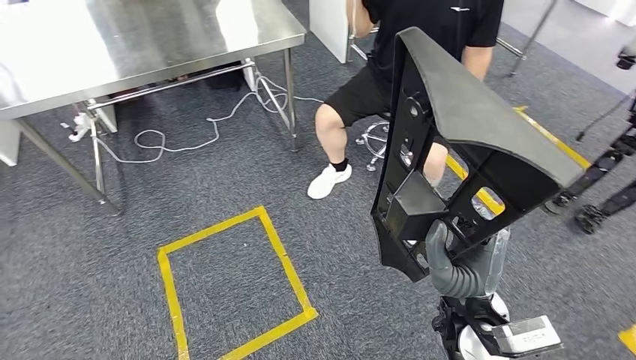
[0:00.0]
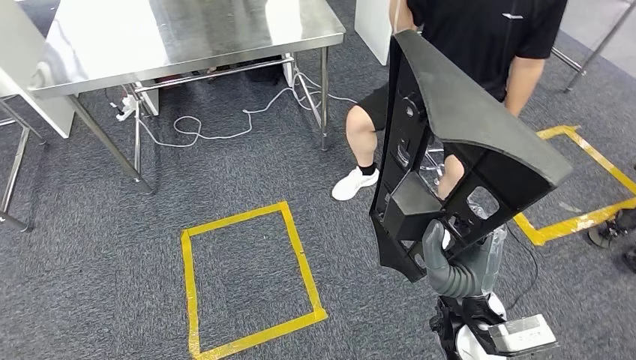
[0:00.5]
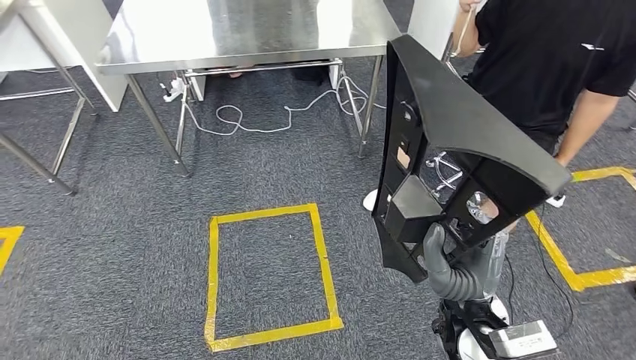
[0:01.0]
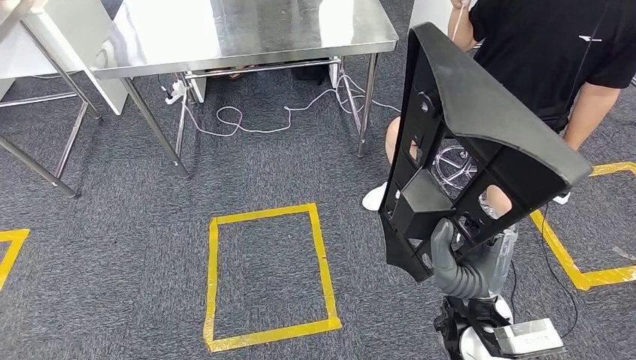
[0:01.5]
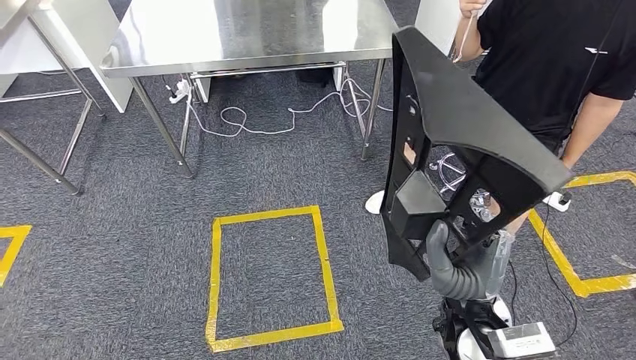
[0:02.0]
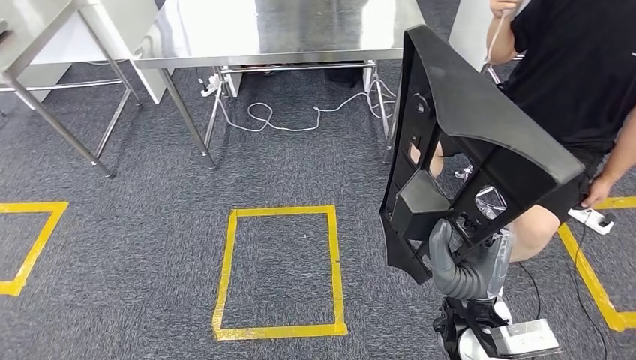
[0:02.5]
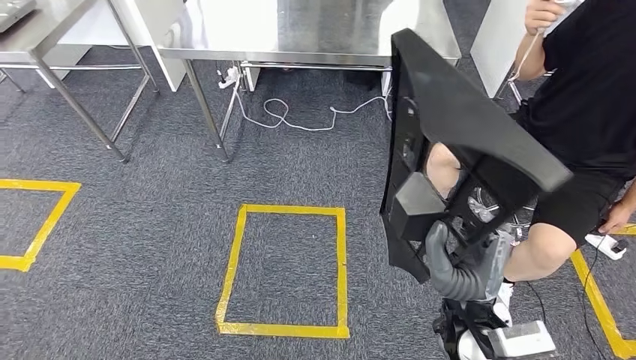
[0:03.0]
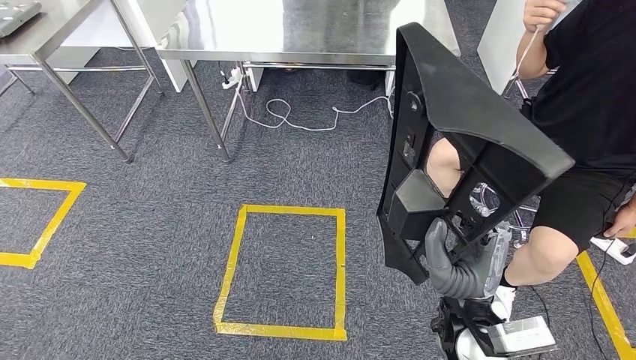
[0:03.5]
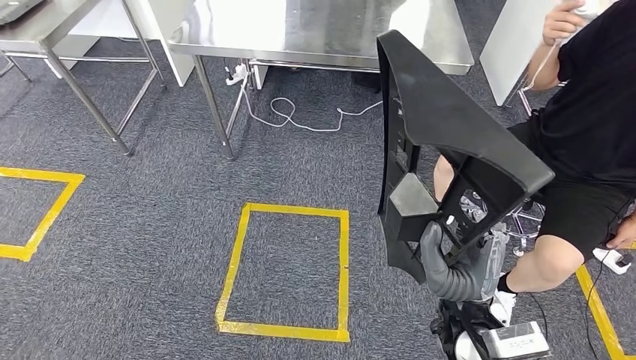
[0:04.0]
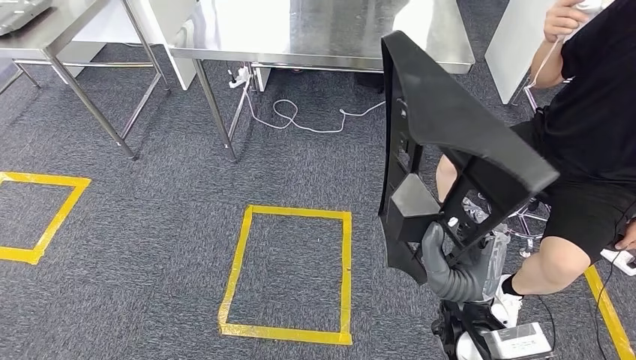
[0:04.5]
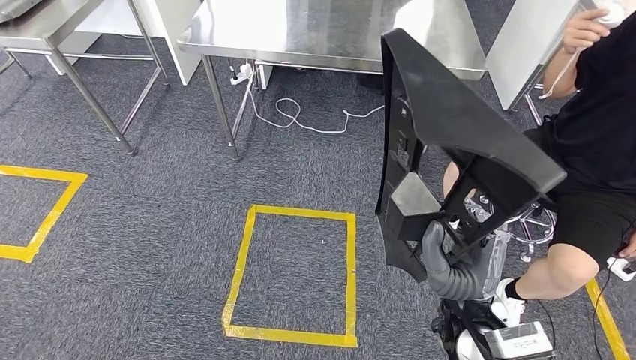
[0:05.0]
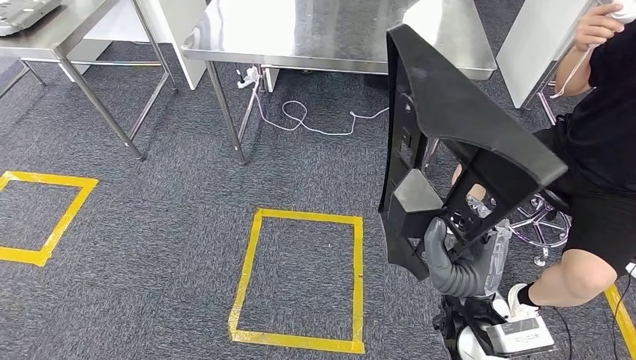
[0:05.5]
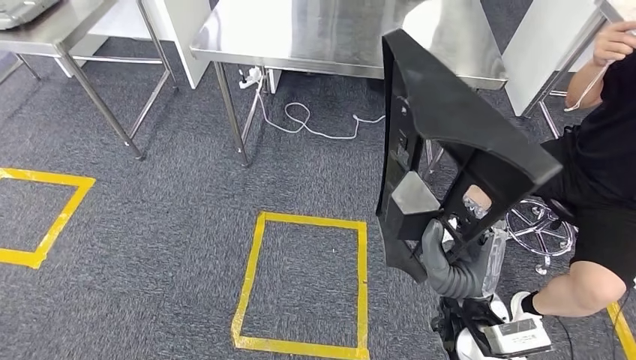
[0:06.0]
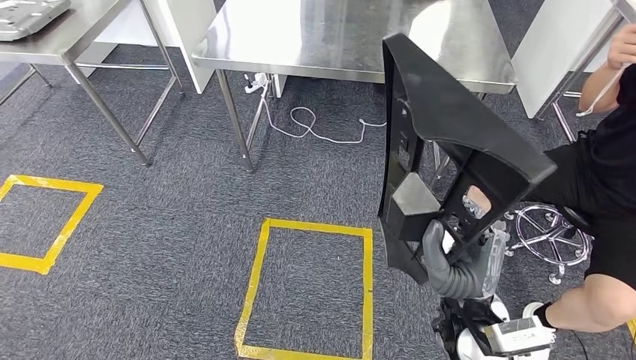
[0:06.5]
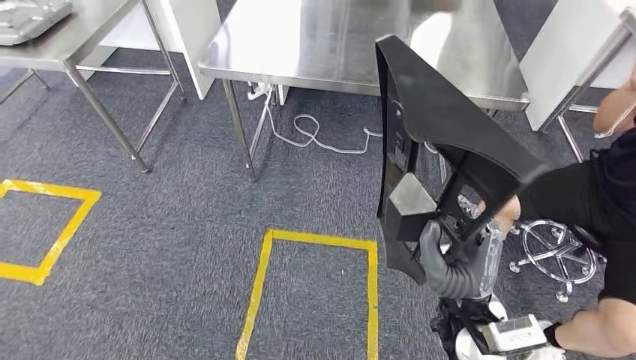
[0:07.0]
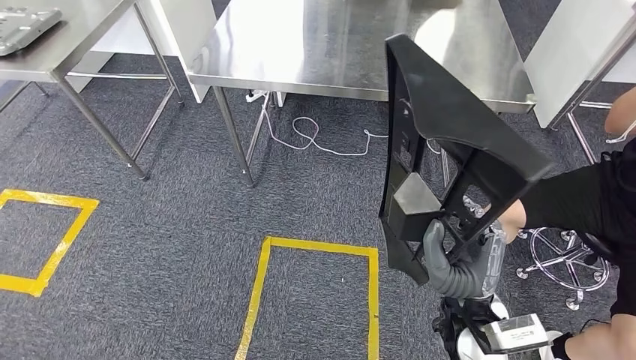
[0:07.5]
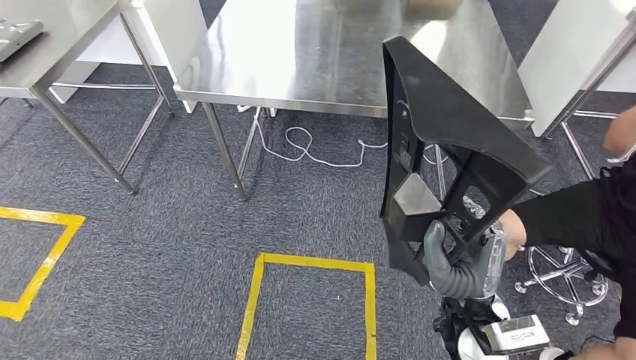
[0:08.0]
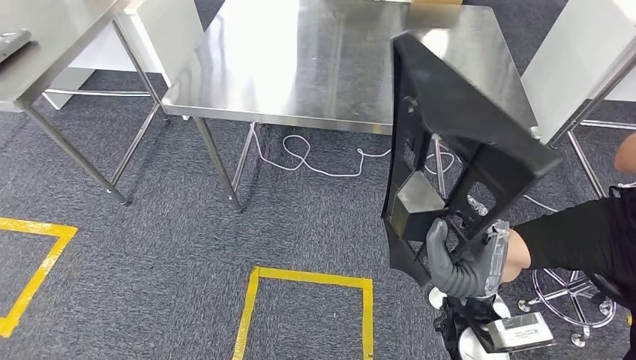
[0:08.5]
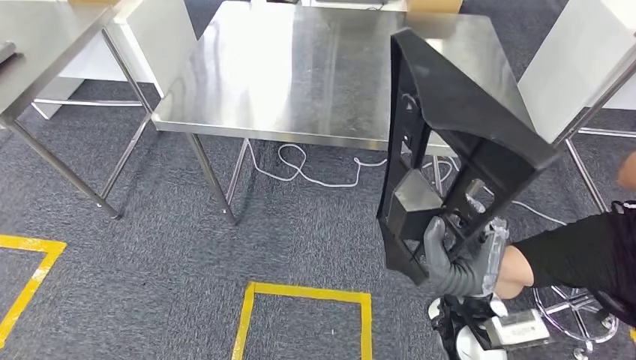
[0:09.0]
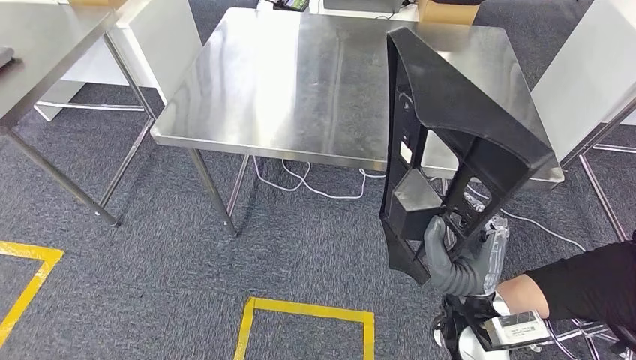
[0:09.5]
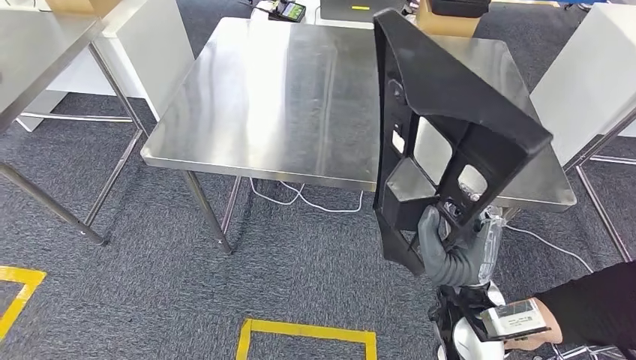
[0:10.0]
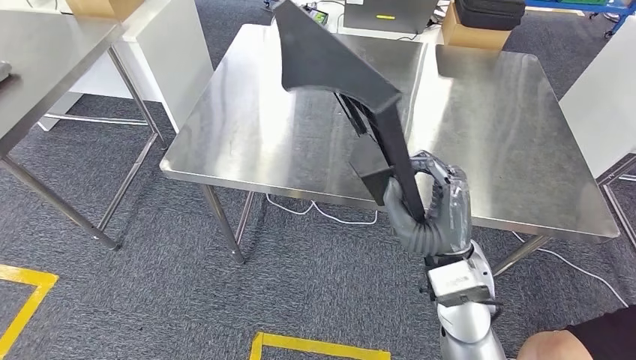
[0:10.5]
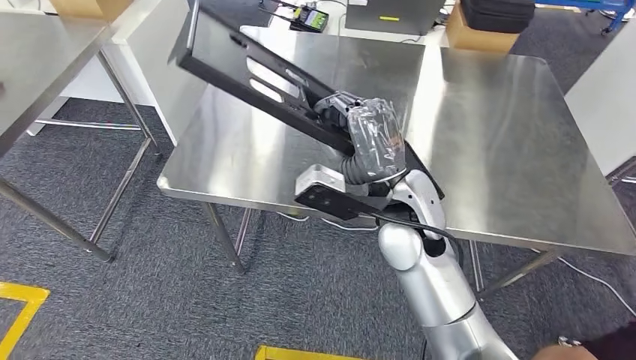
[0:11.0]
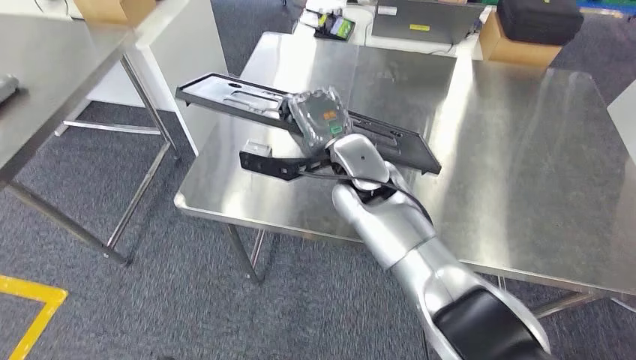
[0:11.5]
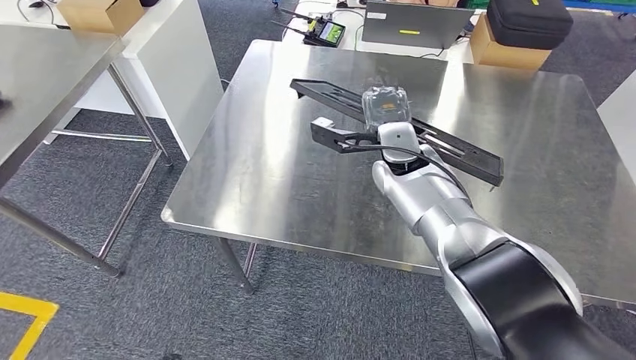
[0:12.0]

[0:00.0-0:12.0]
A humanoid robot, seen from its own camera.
Step, 0:00.0 to 0:09.5: Move the large material to the workbench.

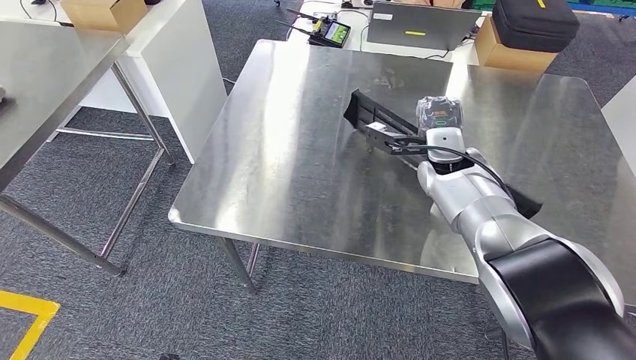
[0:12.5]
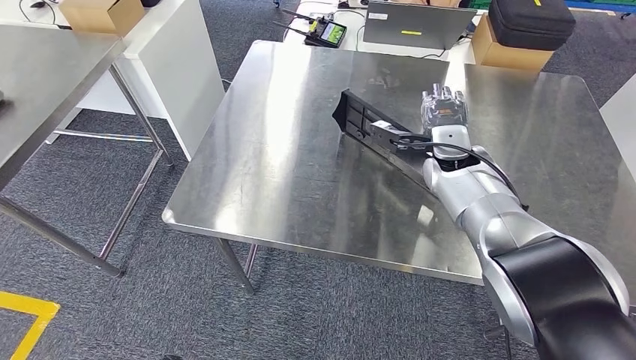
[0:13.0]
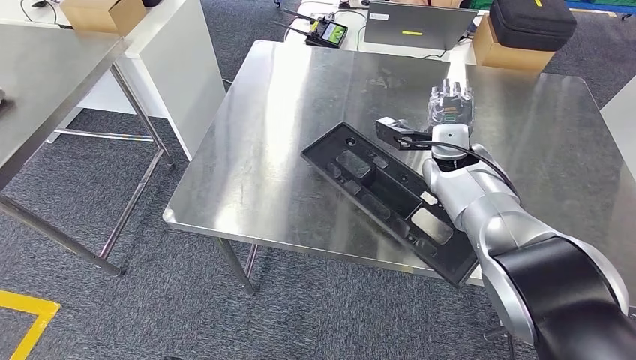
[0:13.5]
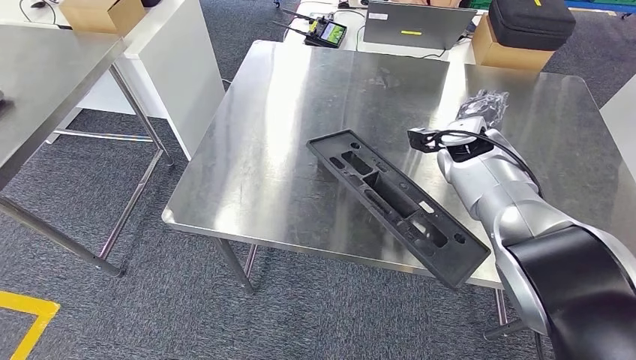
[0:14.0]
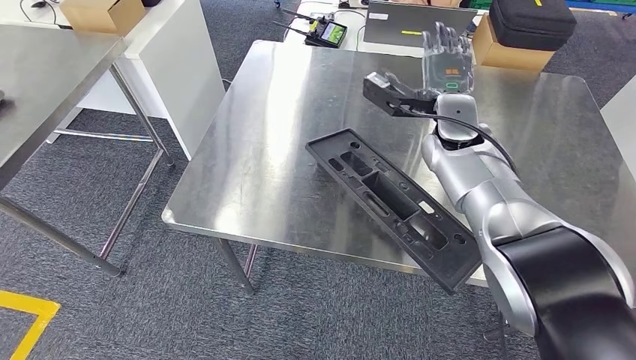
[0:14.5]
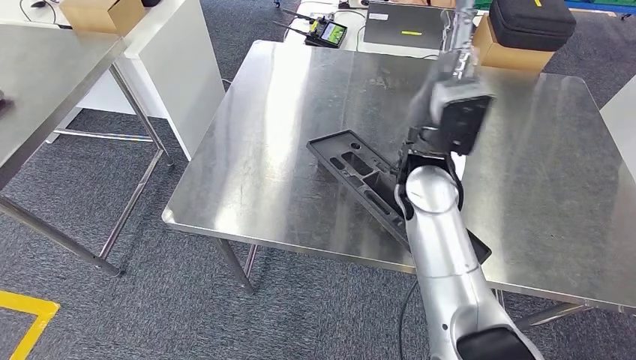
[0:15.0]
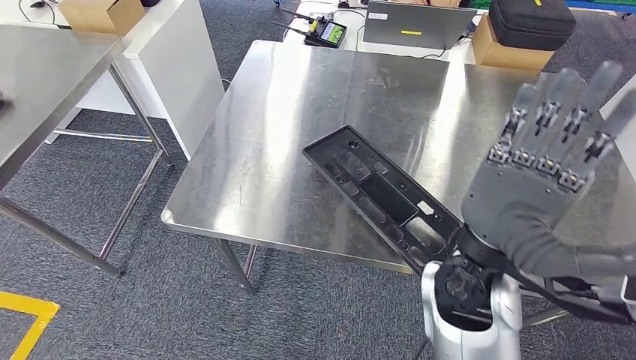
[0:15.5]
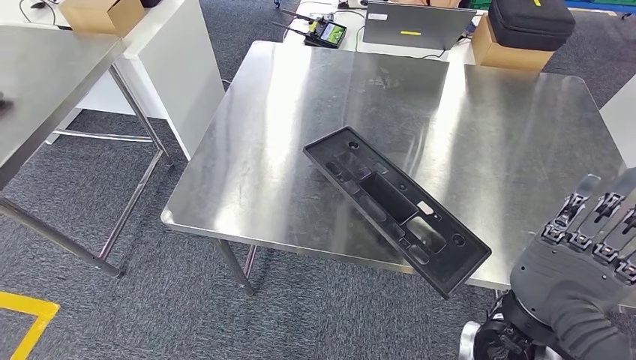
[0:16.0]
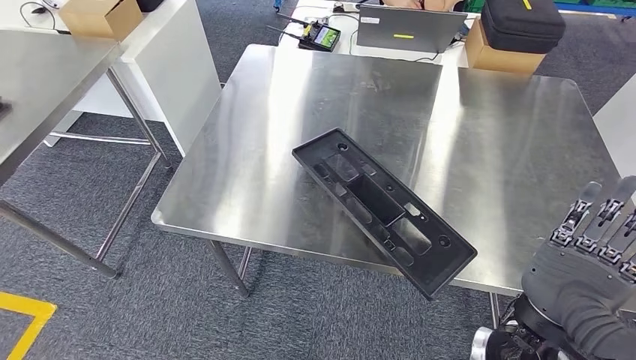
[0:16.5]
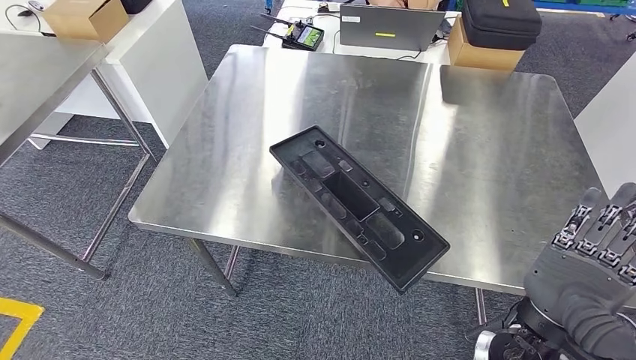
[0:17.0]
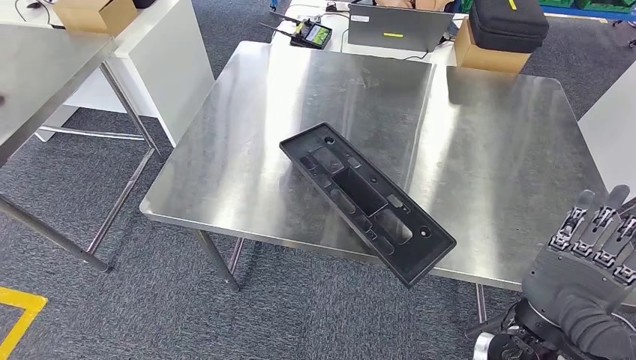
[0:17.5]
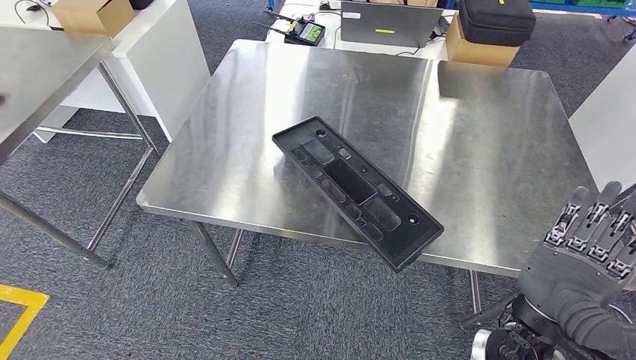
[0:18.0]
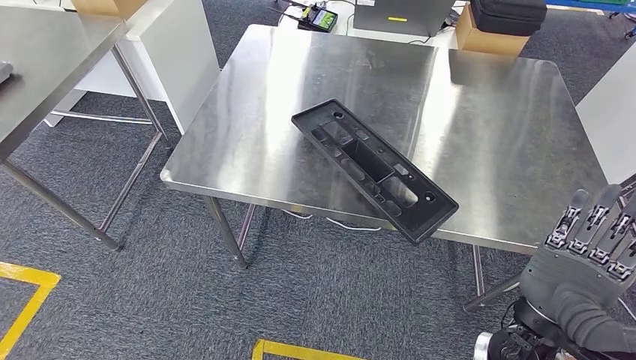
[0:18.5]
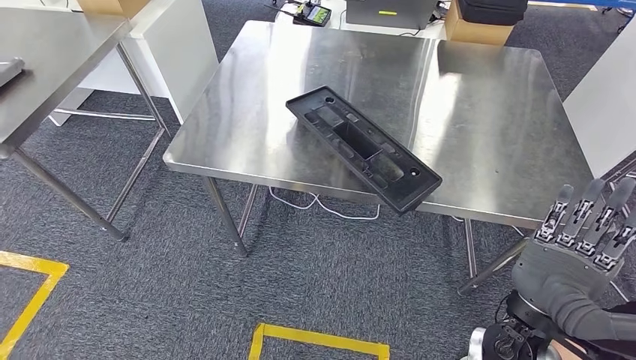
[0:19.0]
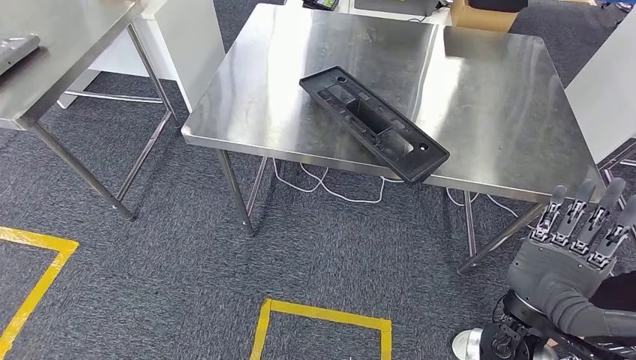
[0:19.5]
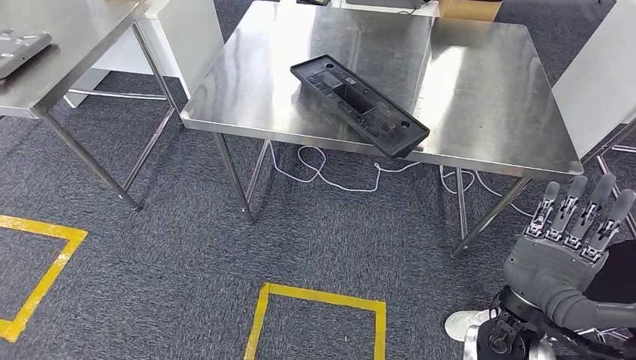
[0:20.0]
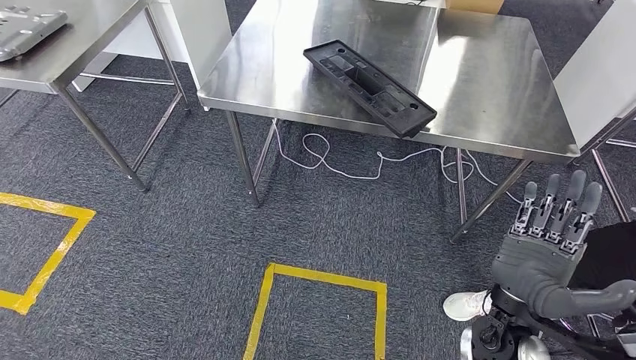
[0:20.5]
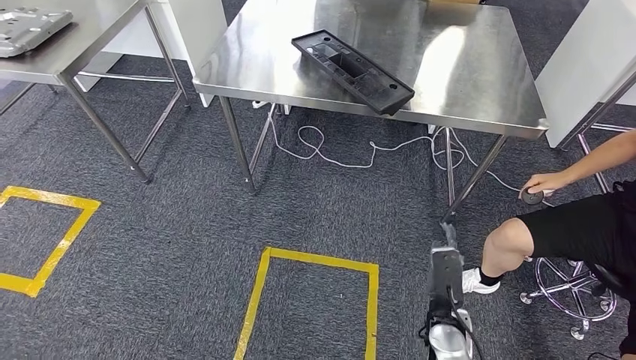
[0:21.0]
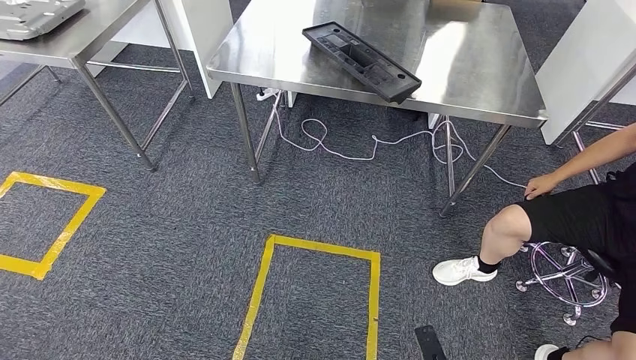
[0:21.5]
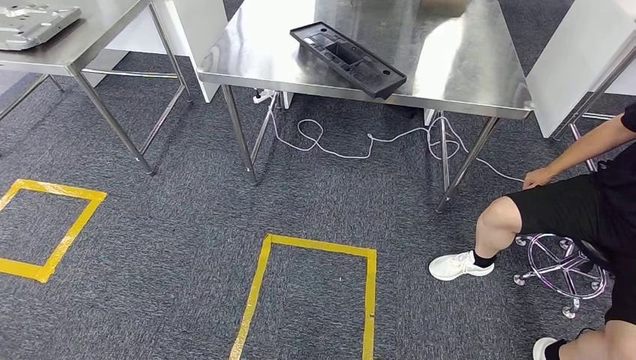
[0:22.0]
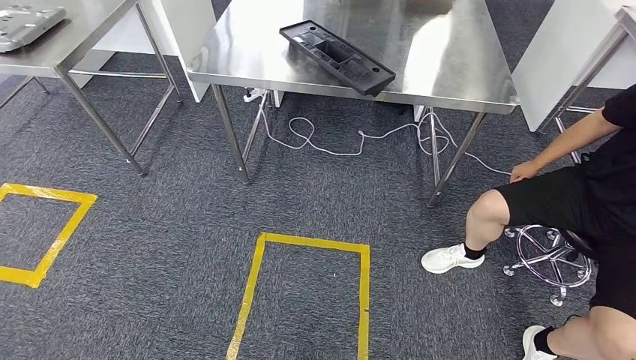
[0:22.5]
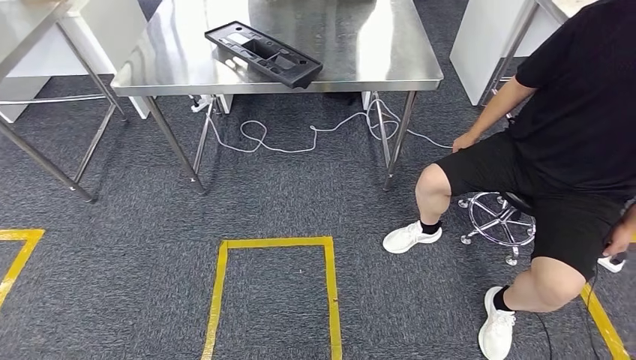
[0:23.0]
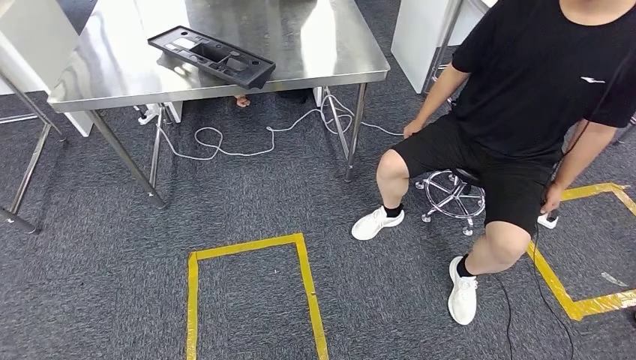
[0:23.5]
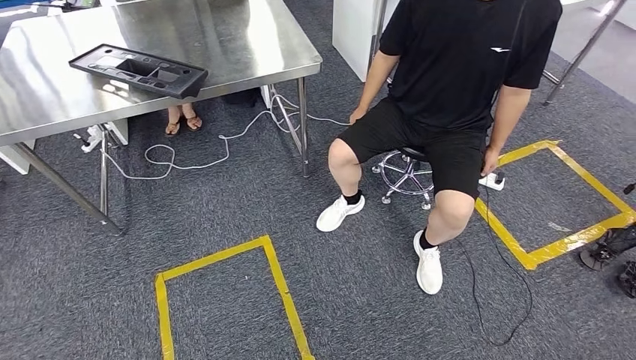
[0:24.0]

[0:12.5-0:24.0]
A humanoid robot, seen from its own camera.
Step, 0:12.5 to 0:21.5: Insert the large material into the corresponding slot on the workbench.
0:12.5 to 0:14.5: The right hand goes roughly 5 cm upward.
